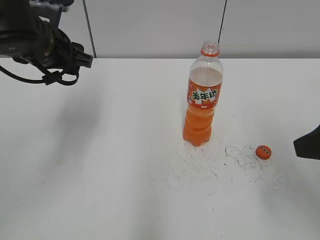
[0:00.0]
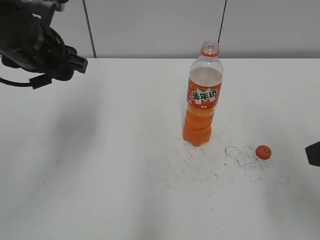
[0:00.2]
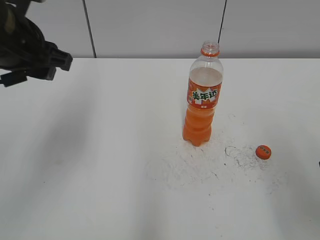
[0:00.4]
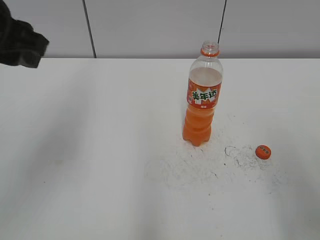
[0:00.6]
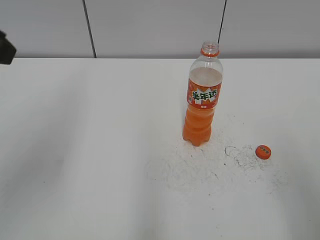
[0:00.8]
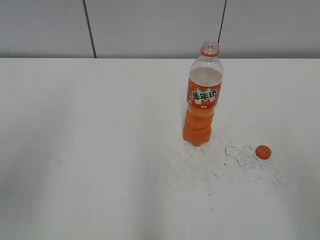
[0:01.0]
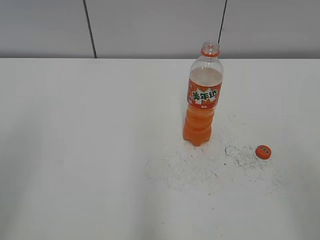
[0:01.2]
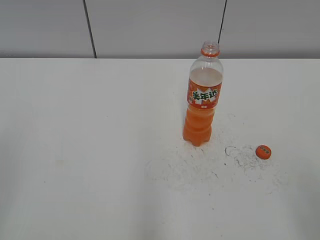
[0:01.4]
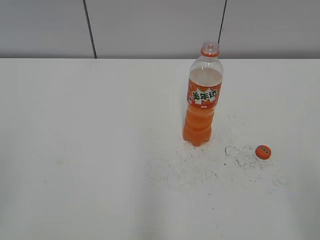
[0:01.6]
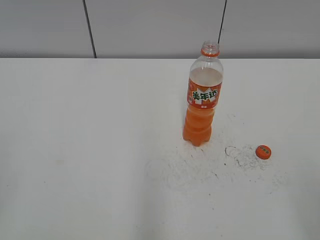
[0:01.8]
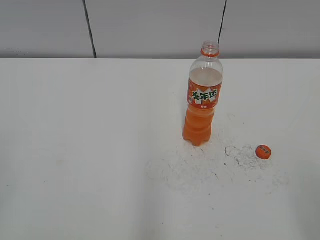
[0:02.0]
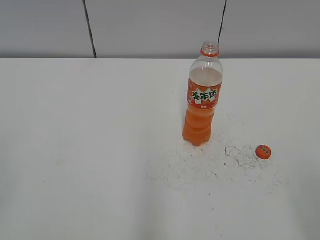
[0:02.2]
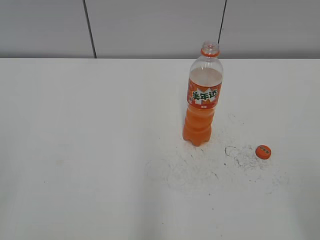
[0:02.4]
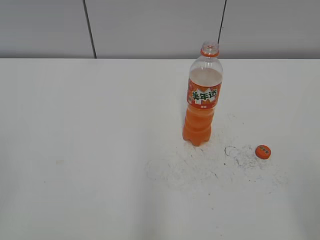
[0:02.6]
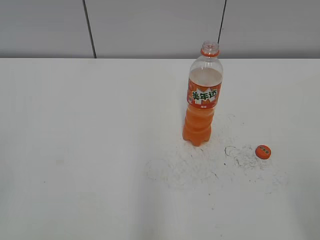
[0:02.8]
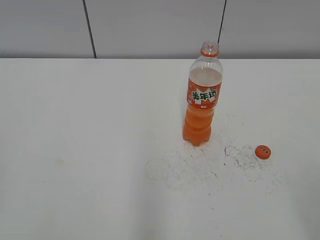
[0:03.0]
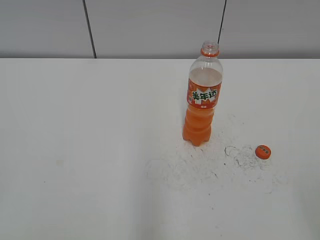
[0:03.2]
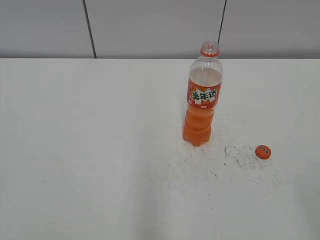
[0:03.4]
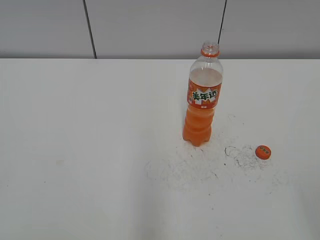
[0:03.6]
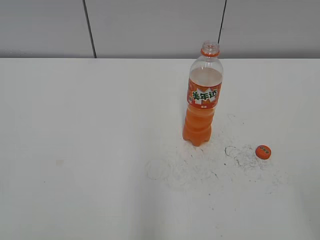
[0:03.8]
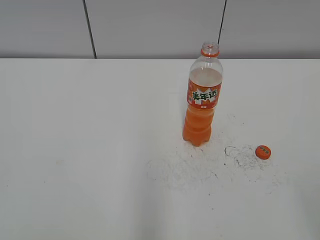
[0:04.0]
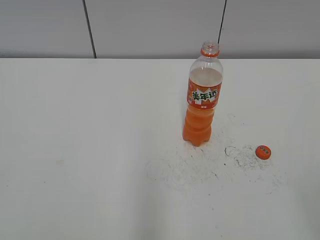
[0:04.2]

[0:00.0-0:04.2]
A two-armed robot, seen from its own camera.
0:00.0 to 0:01.4: The right gripper moves backward, some 15 cm; the left gripper moves backward and to the left, approximately 30 cm, and closes up.
